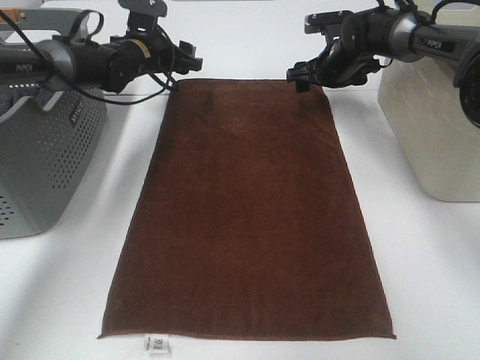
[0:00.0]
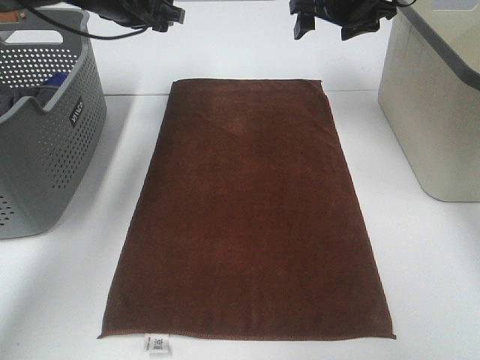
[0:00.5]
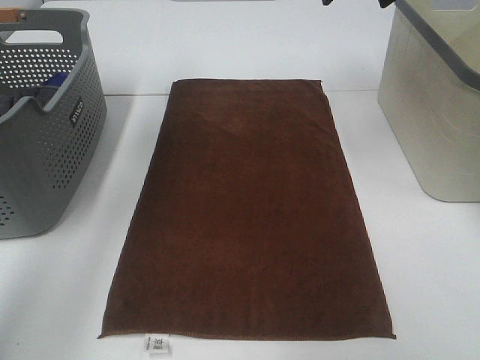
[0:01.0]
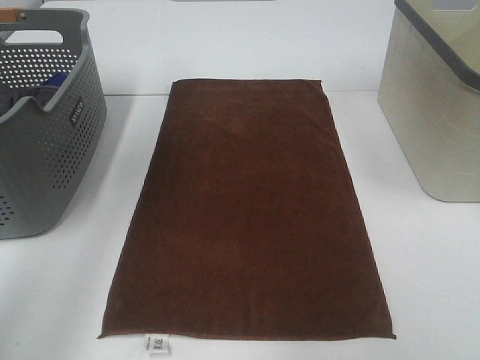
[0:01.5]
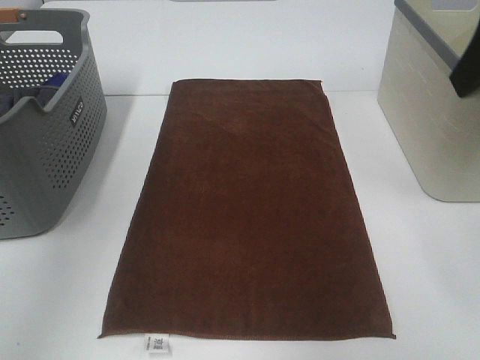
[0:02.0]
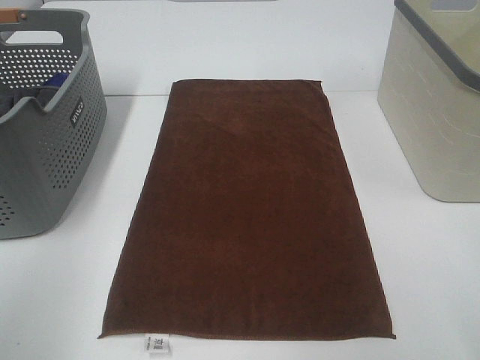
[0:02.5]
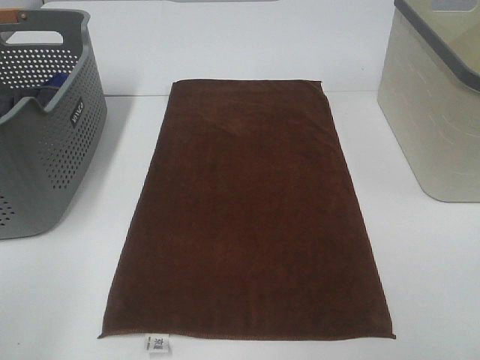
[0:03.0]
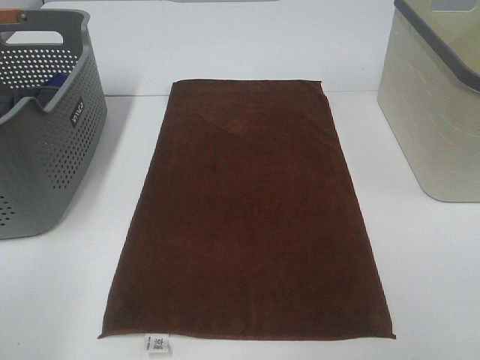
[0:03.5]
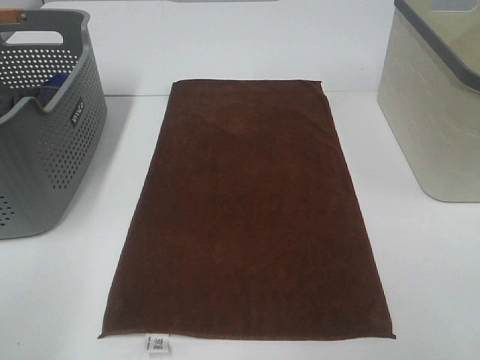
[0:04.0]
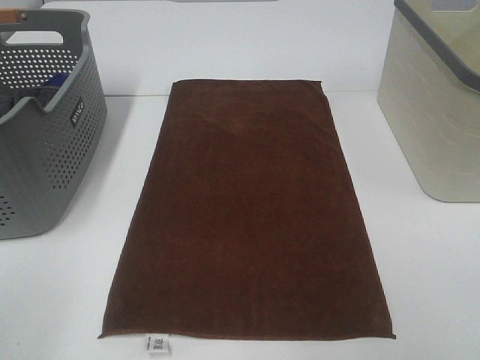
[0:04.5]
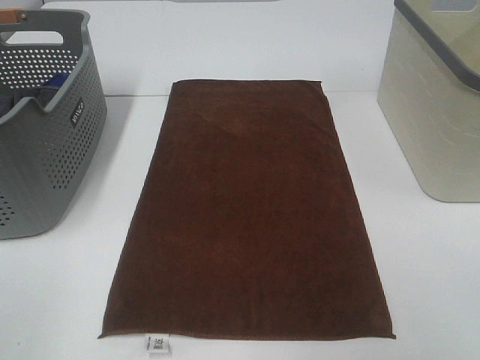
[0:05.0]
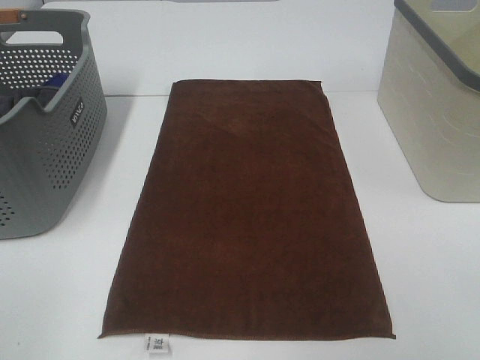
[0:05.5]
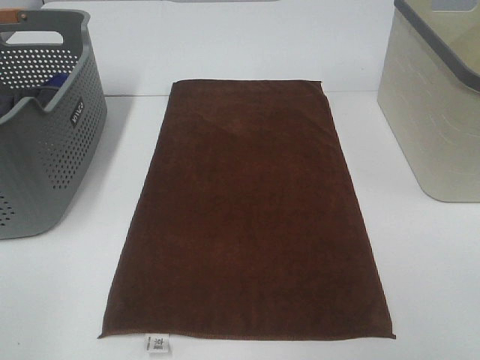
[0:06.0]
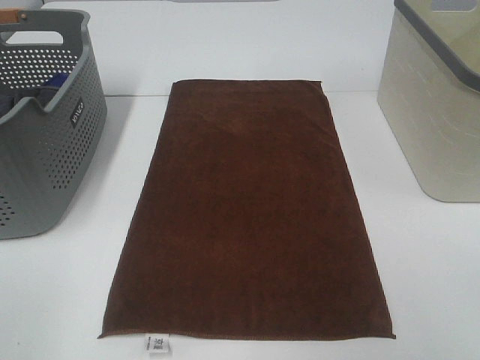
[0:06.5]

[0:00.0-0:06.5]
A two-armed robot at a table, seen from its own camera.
Task of the whole recording: Remove the towel and place it.
0:00.0 to 0:02.0: The two grippers go some 40 cm backward and upward.
0:02.0 to 0:04.5: Both grippers move backward and downward, about 25 cm.

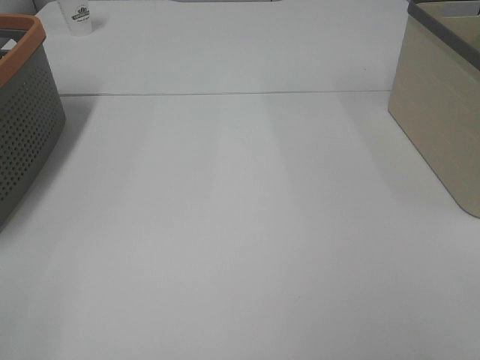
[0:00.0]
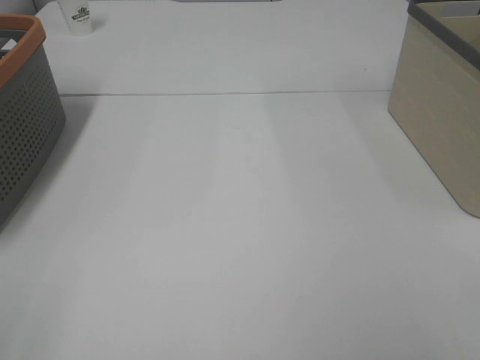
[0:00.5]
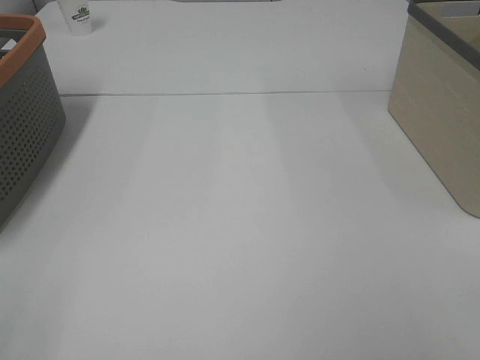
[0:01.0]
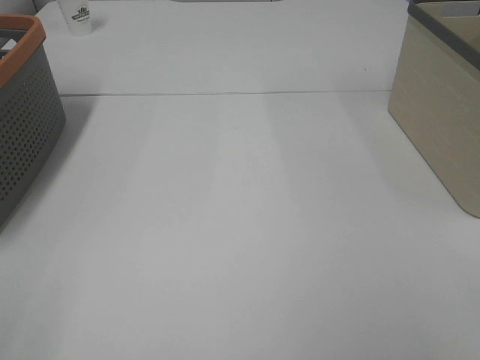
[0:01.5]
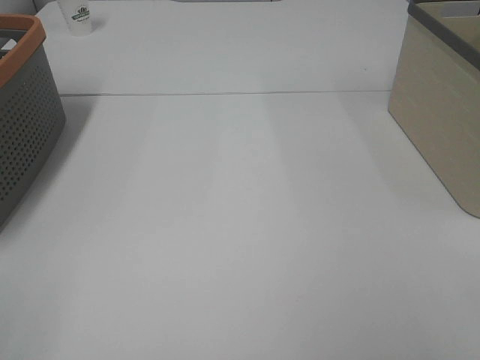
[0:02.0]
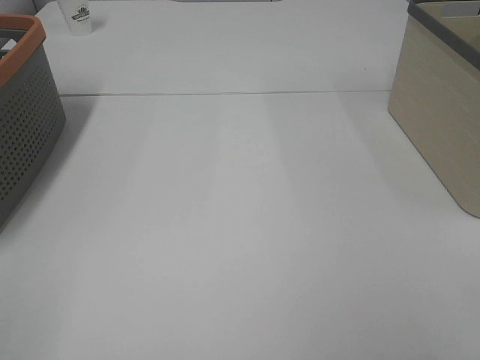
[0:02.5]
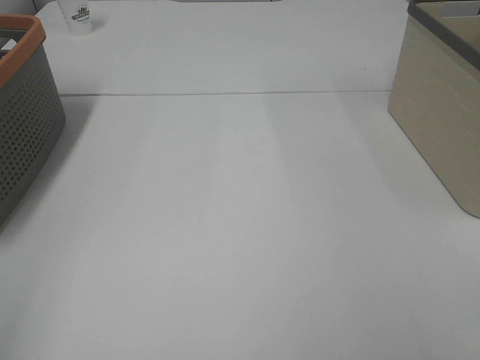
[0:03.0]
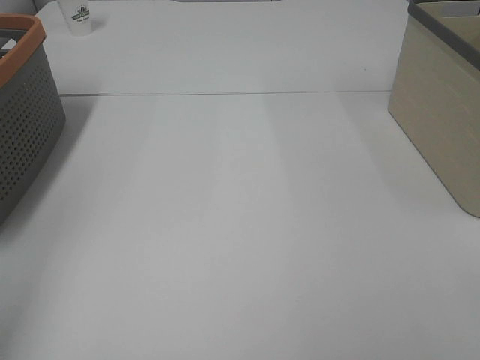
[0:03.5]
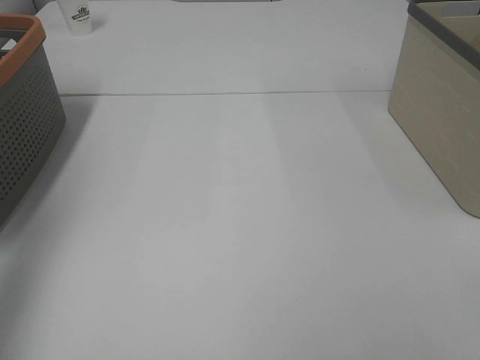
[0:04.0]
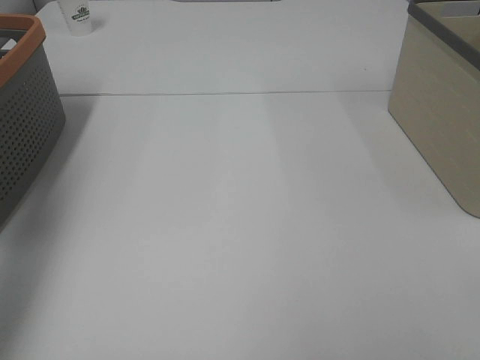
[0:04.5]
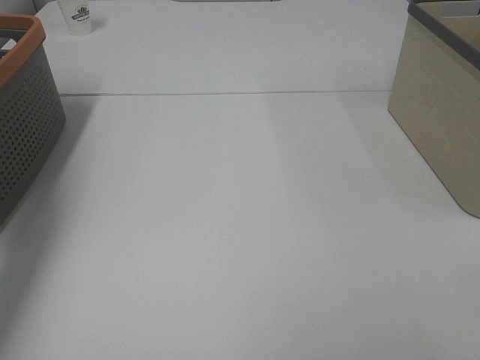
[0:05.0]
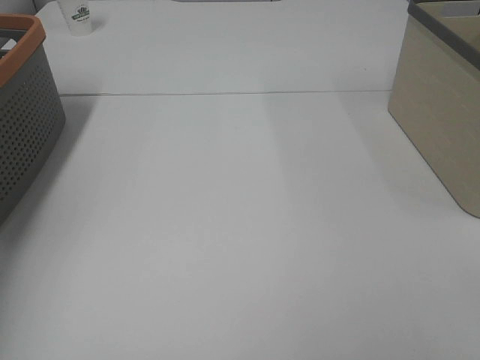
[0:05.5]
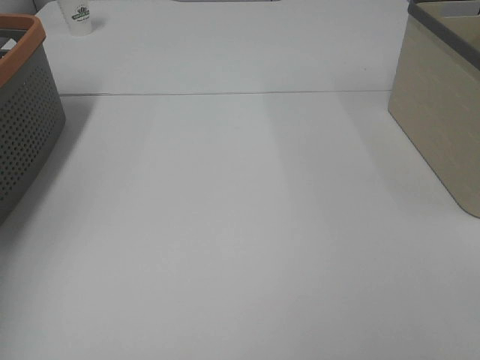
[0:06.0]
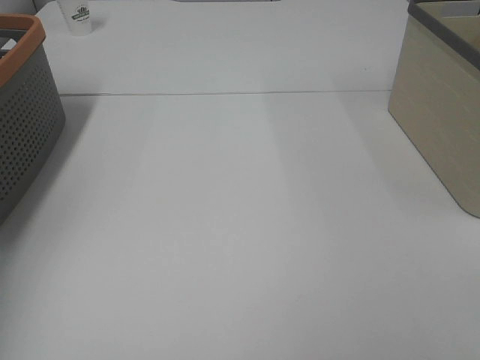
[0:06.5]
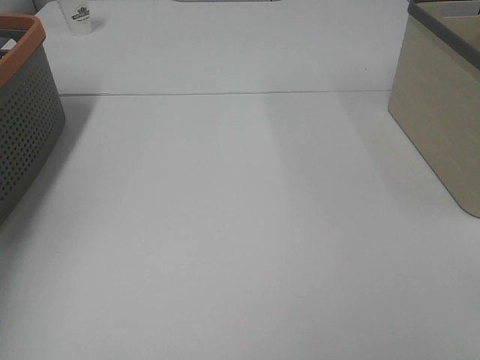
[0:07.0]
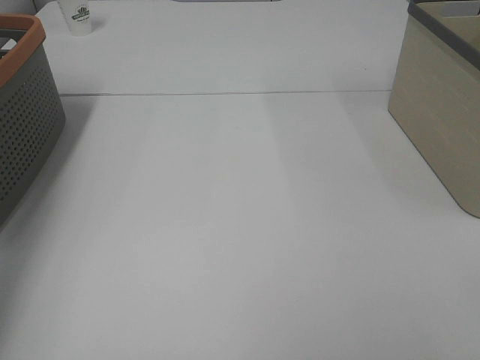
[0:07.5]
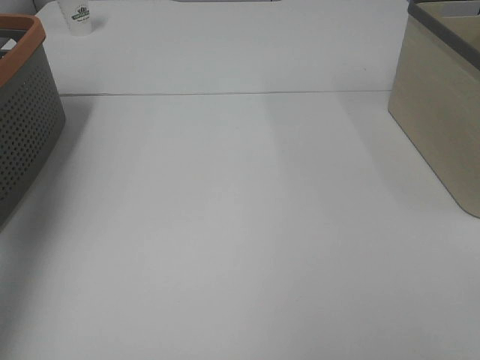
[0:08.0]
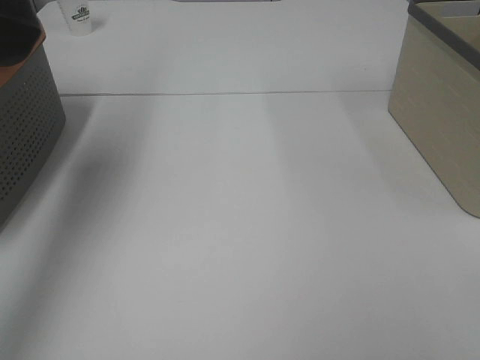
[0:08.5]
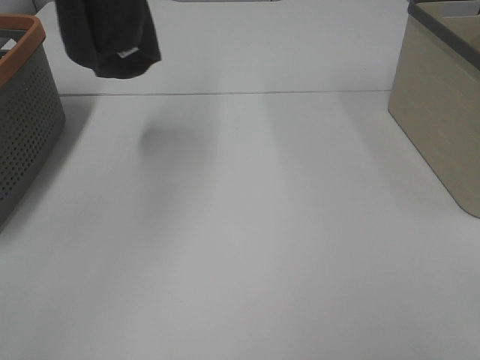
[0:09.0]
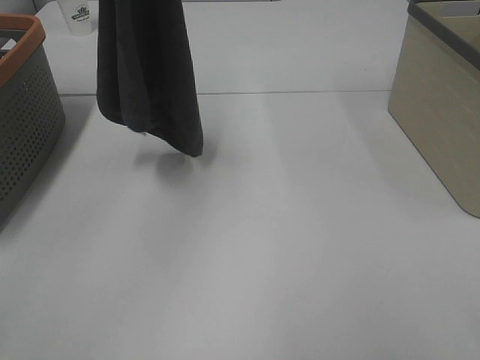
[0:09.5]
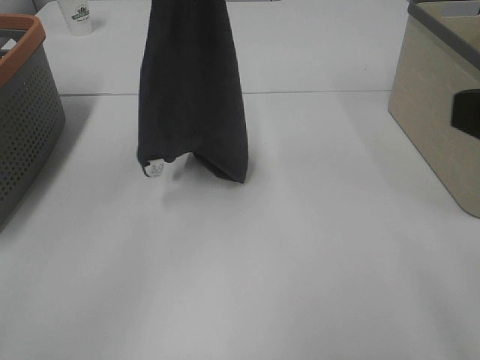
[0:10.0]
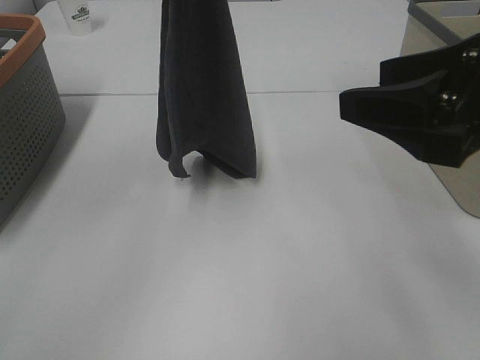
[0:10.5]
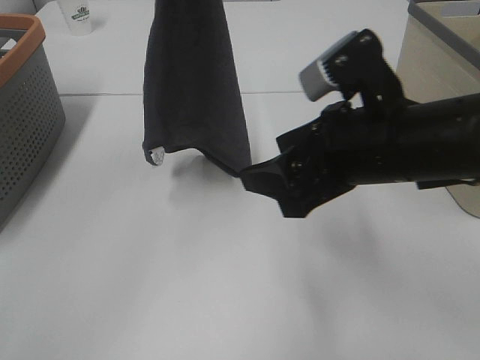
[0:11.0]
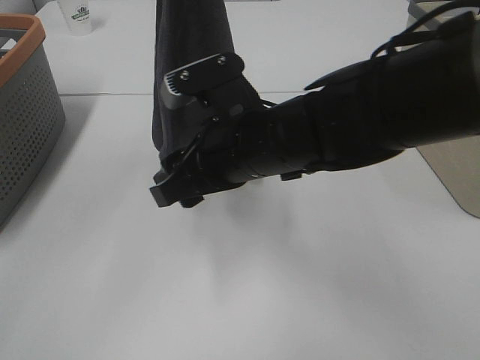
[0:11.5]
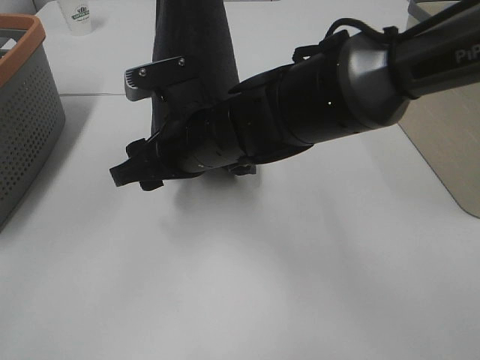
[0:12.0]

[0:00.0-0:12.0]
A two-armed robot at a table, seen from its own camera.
Task of the whole recording: Remove the towel and place it.
0:00.0 to 0:02.0: Neither gripper changes place.
0:02.0 to 0:04.0: The left gripper moves forward and upward, about 20 cm.
0:06.0 to 0:08.0: The left gripper moves upward, some 25 cm, and closes its fingers.
0:08.0 to 0:10.0: The right gripper travels forward by roughly 10 cm; the left gripper is displaced to the right by roughly 20 cm.
0:10.0 to 0:12.0: The right gripper is displaced to the left, forward and downward by some 35 cm.

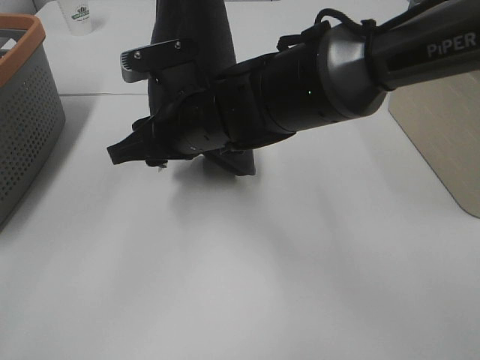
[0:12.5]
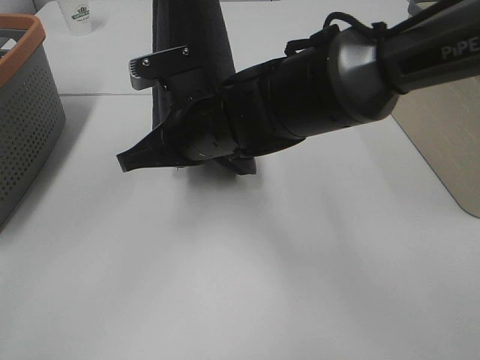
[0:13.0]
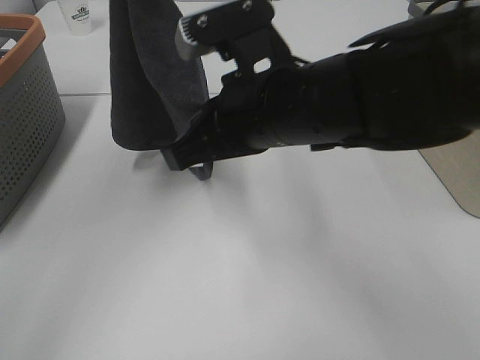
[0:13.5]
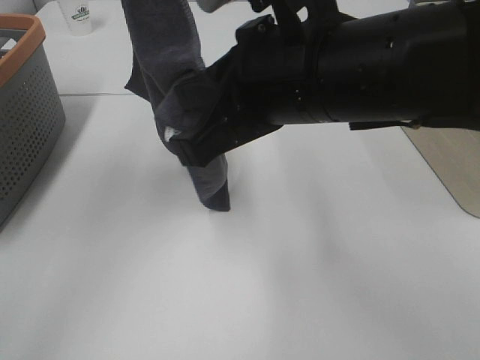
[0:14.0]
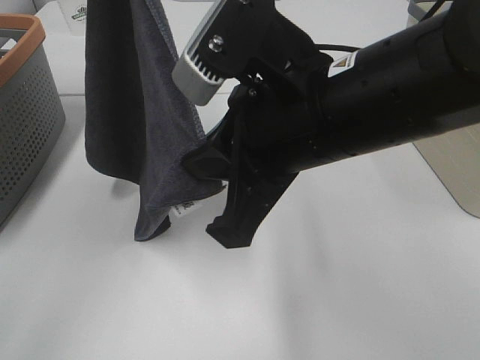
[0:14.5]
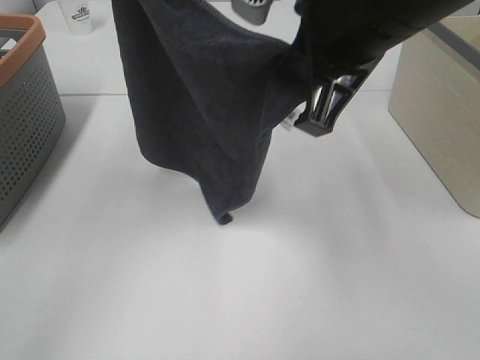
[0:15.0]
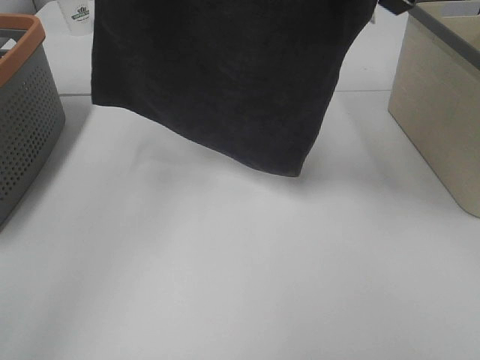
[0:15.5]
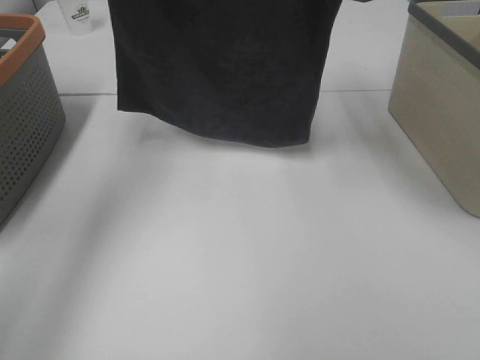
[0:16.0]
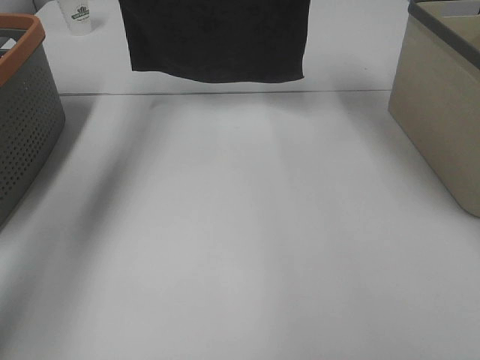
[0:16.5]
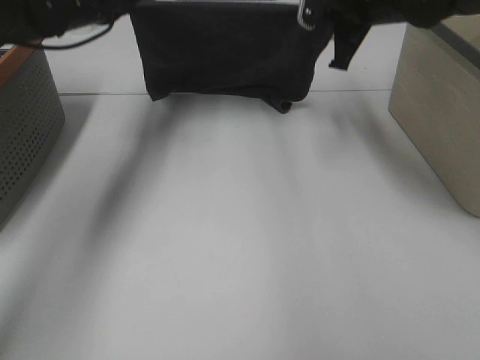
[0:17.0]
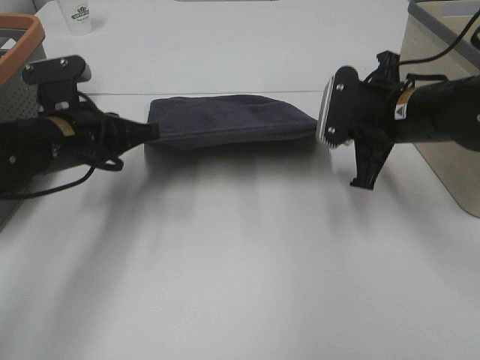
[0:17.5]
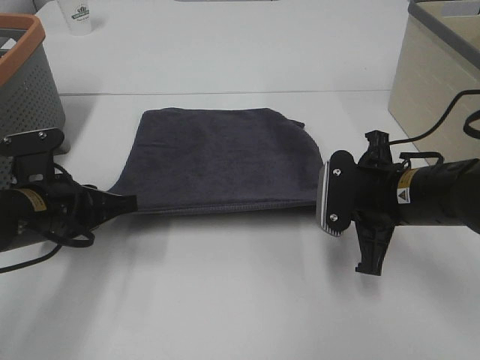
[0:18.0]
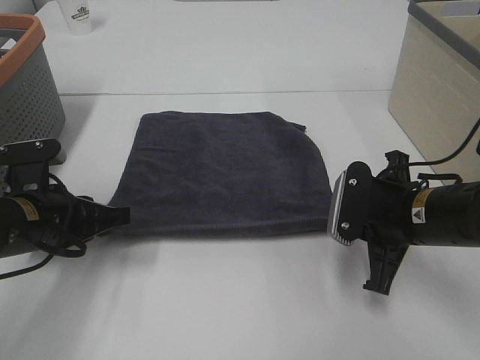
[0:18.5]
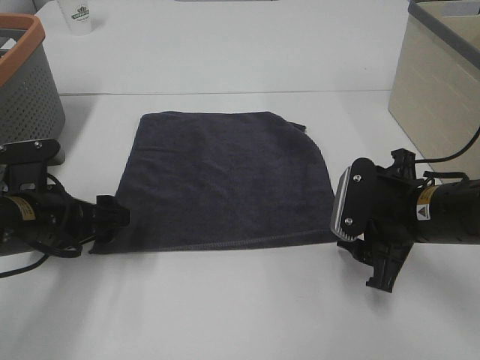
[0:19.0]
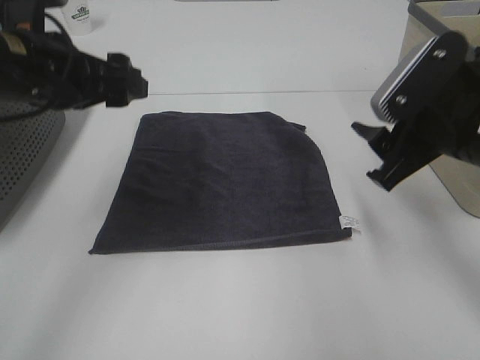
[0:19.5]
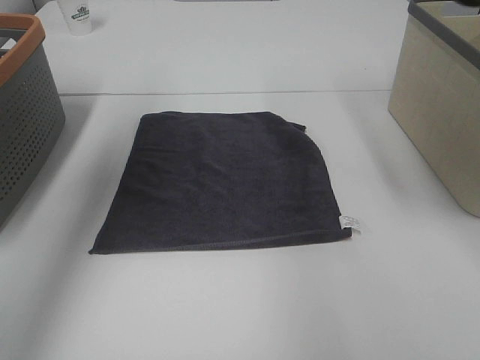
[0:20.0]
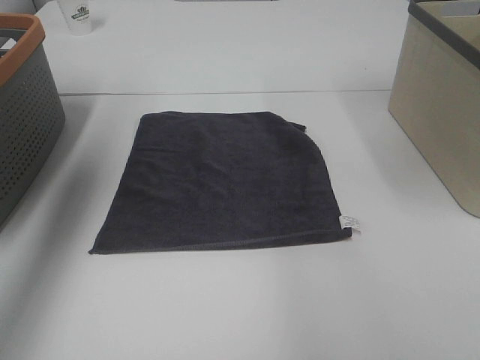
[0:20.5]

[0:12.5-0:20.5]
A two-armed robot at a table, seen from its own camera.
Task of the whole recording: Remove the towel and place it.
Step, 0:13.0 to 0:14.5: Left hand: spread the grey towel flat on the table.
Step, 0:13.0 to 0:14.5: Right hand: spread the grey towel flat on the table.
0:12.5 to 0:14.5: The right gripper goes roughly 20 cm backward, upward and to the right, and closes its fingers. The left gripper travels to the left by about 5 cm.
0:14.5 to 0:16.5: The right gripper is displaced forward by approximately 30 cm. Meanwhile the left gripper moves forward, roughly 15 cm.
0:16.5 to 0:18.5: Both grippers move downward and backward, some 35 cm.
0:18.5 to 0:20.5: The right gripper shifts approximately 30 cm upward and forward, and opens, while the left gripper moves upward, about 30 cm, and opens.
